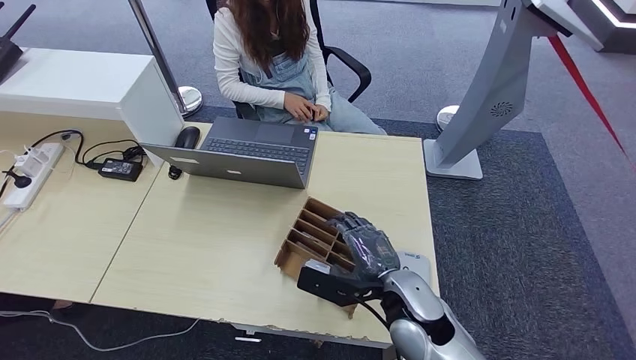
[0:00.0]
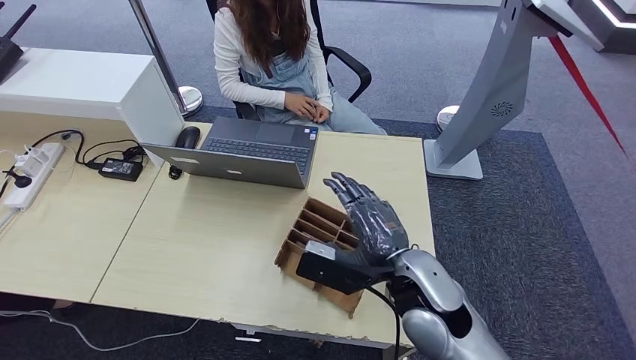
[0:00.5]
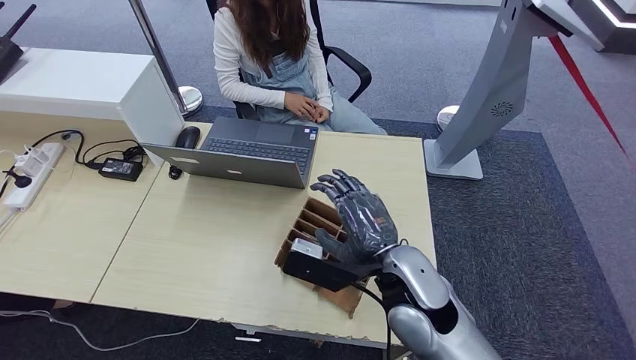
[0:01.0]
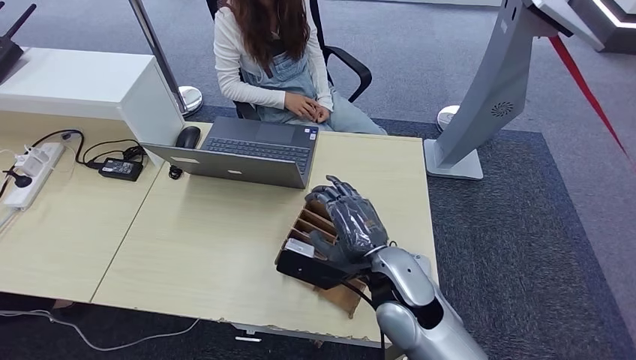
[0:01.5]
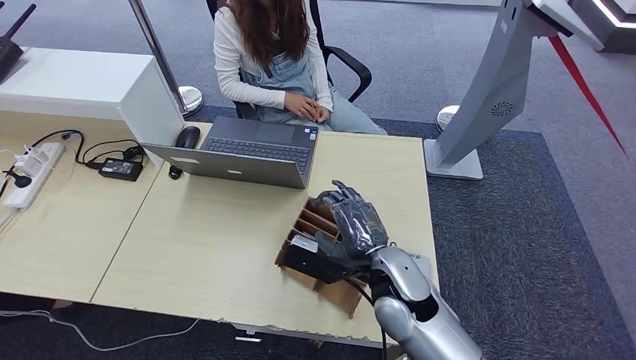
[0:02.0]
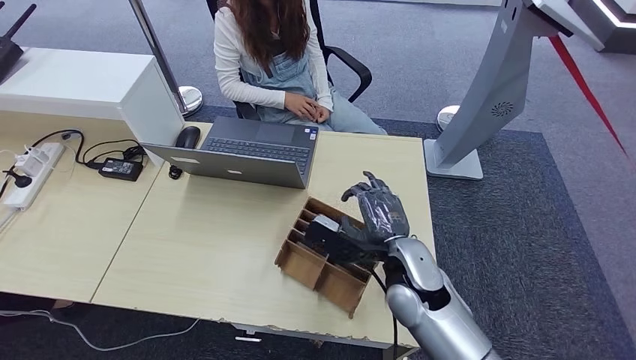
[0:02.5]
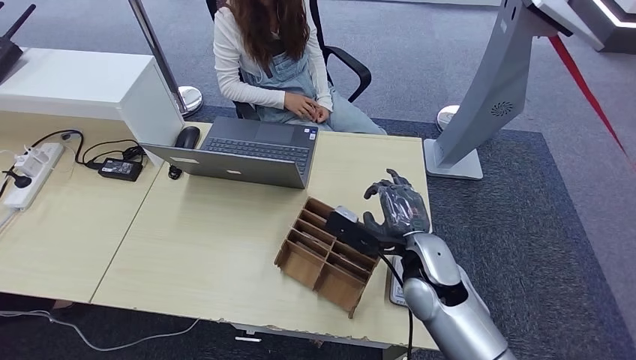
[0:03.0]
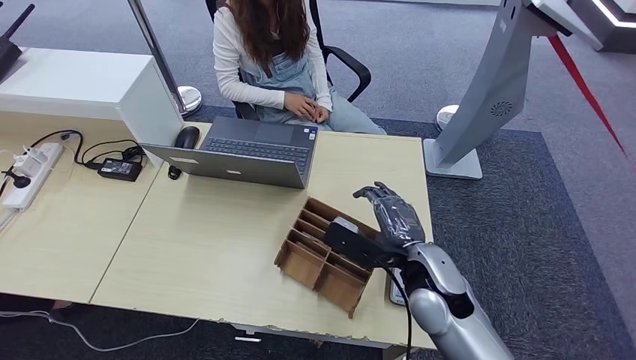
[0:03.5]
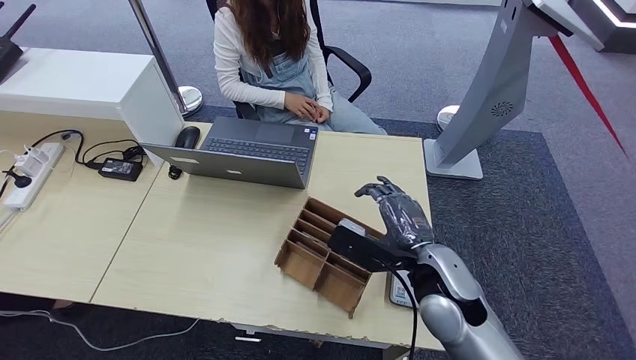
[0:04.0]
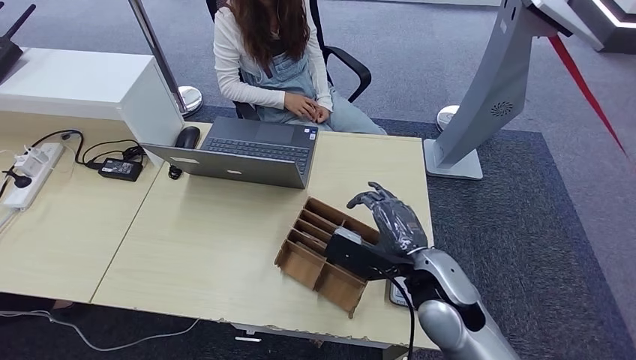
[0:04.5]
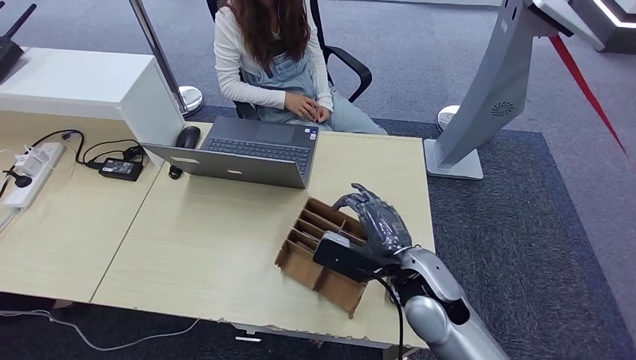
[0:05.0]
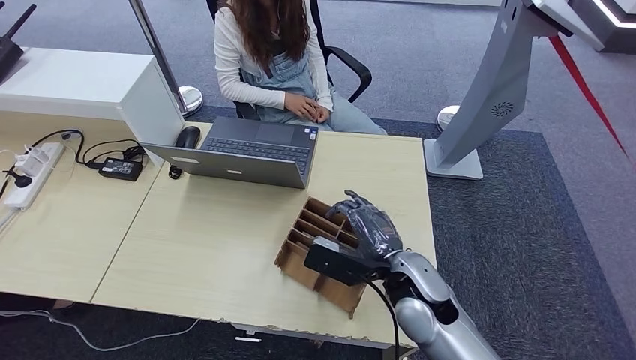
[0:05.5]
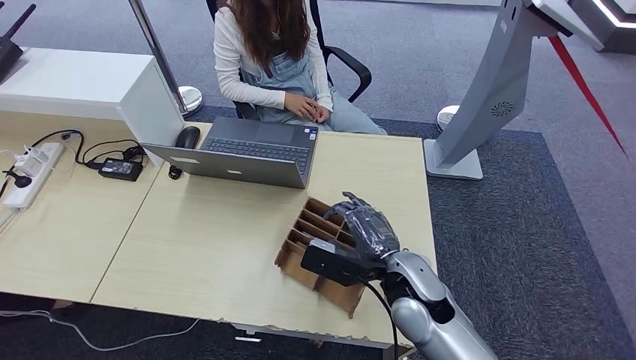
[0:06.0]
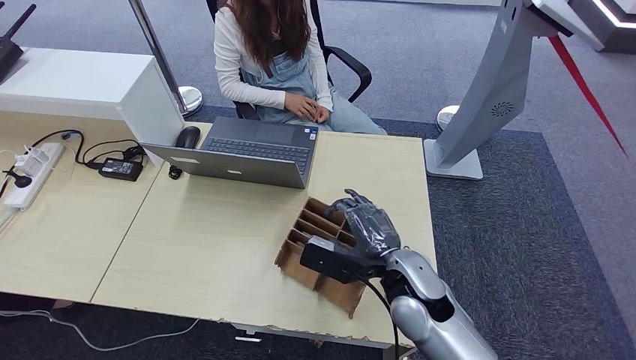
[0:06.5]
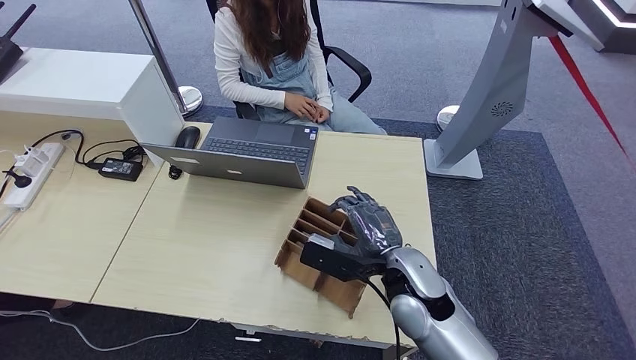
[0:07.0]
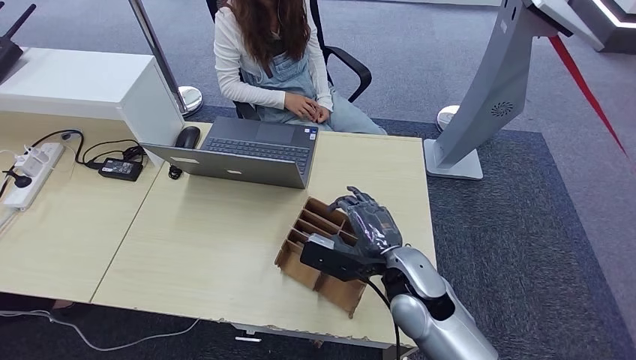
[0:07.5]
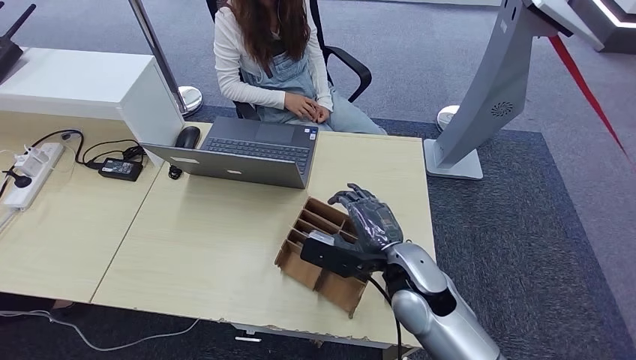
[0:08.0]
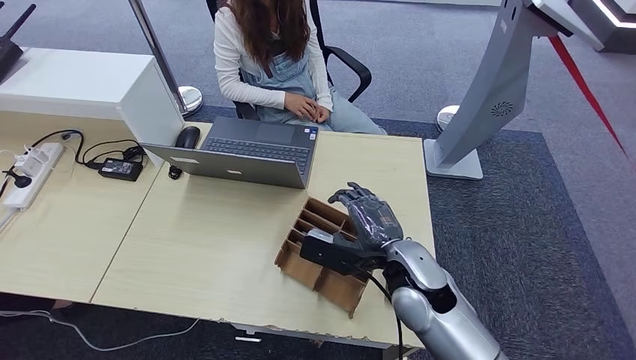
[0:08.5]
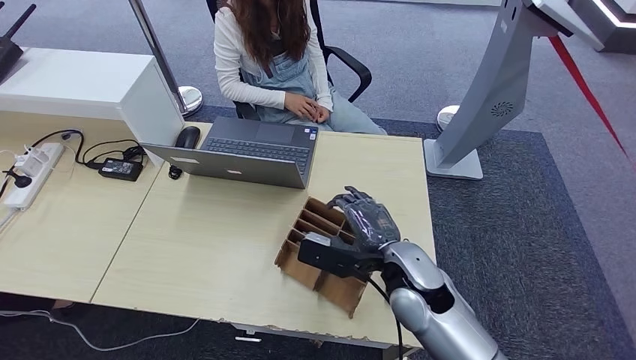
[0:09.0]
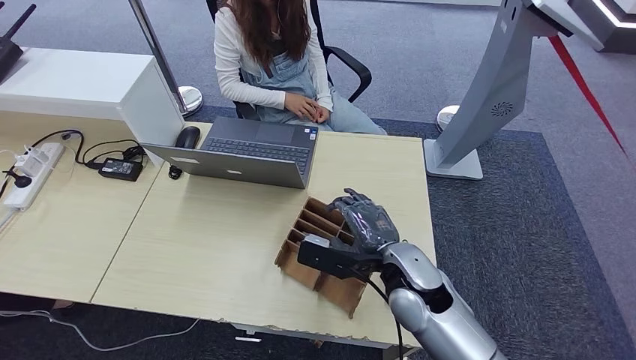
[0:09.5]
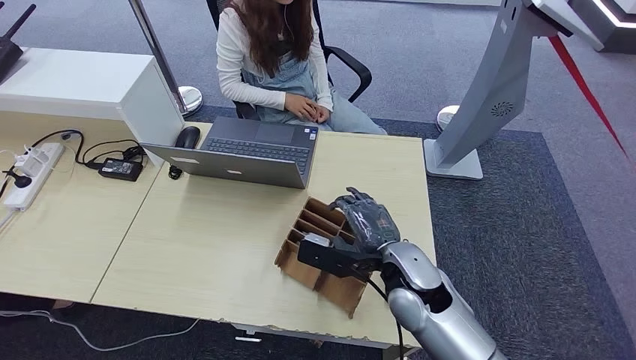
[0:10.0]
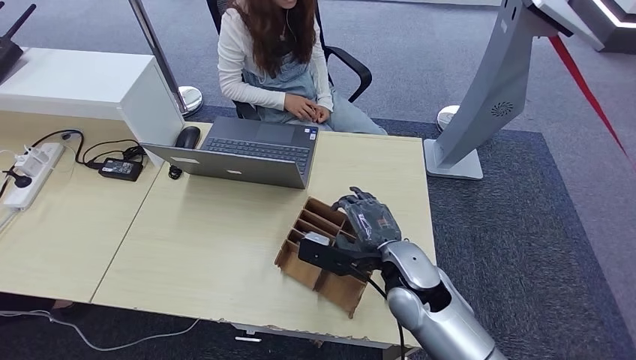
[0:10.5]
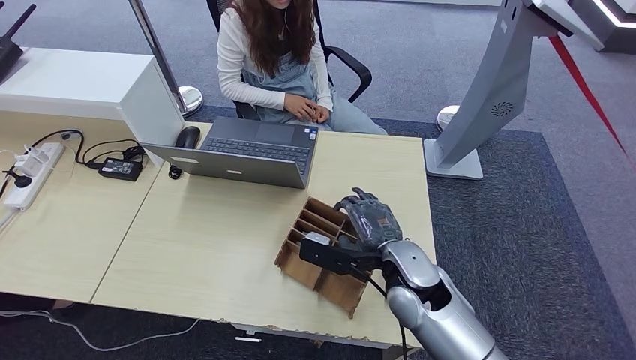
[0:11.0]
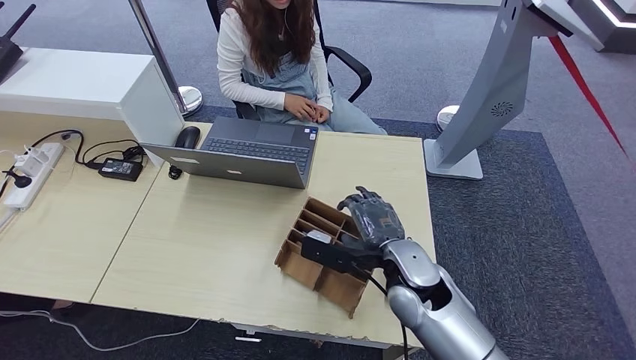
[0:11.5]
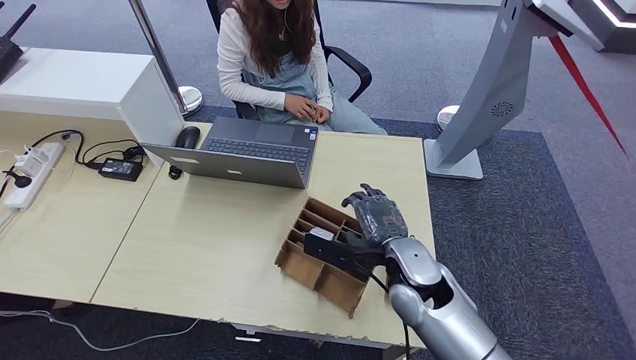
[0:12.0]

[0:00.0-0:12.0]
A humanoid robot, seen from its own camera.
0:02.0 to 0:04.0: The right hand moves to the right, approximately 5 cm.
0:04.0 to 0:12.0: The hands make only small movements.

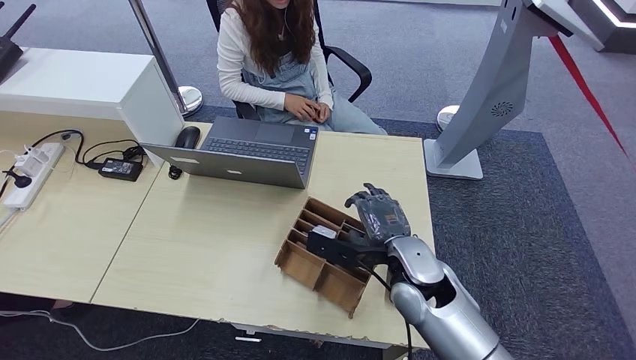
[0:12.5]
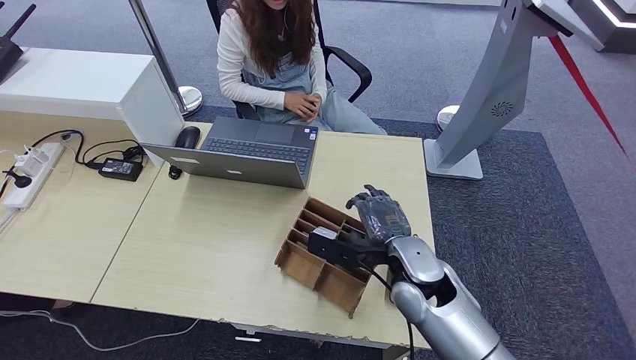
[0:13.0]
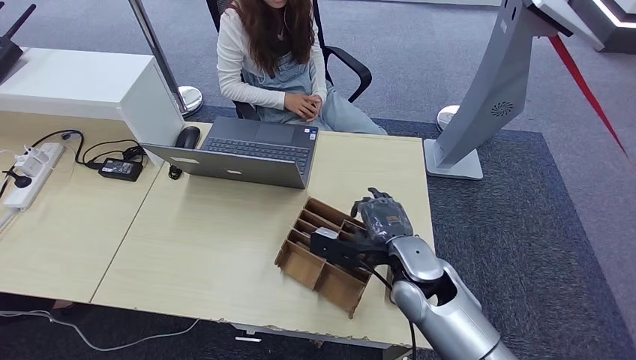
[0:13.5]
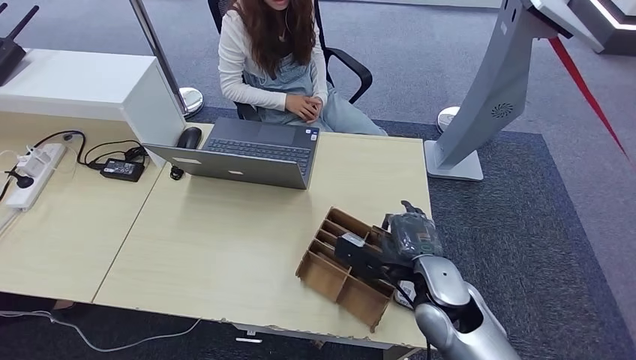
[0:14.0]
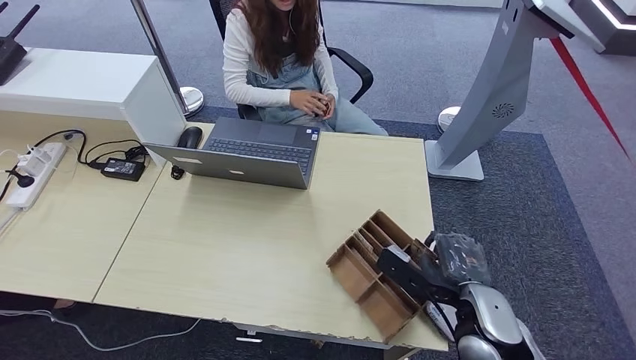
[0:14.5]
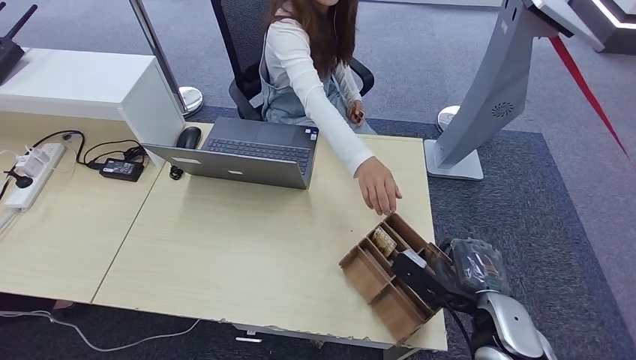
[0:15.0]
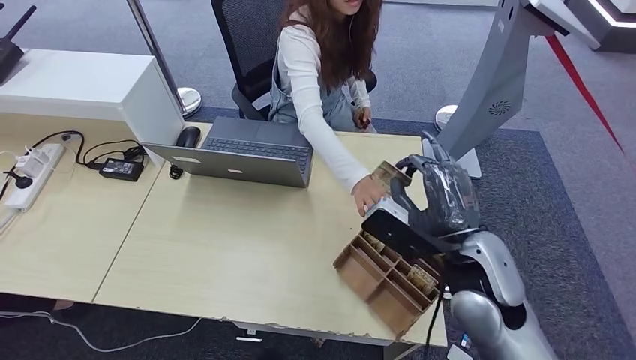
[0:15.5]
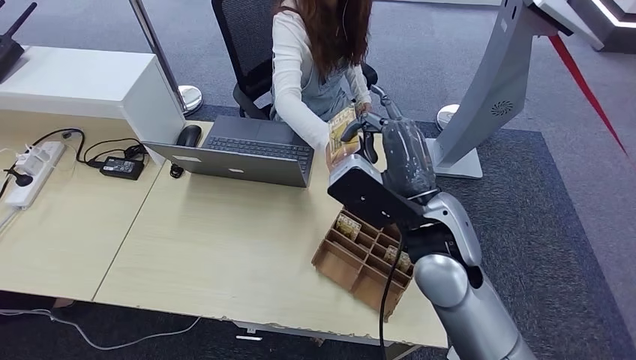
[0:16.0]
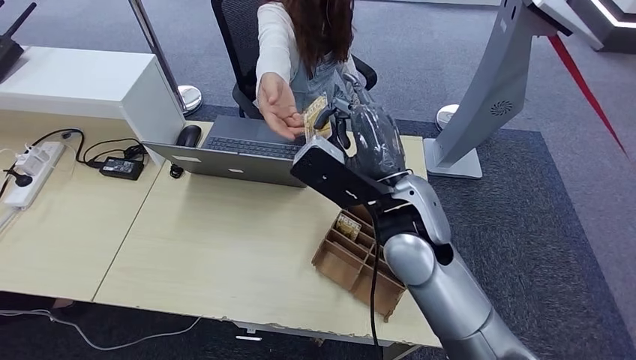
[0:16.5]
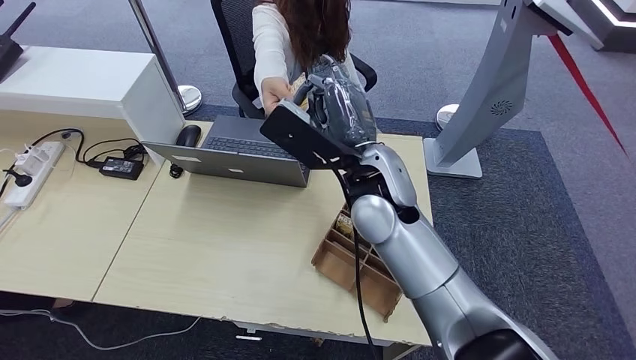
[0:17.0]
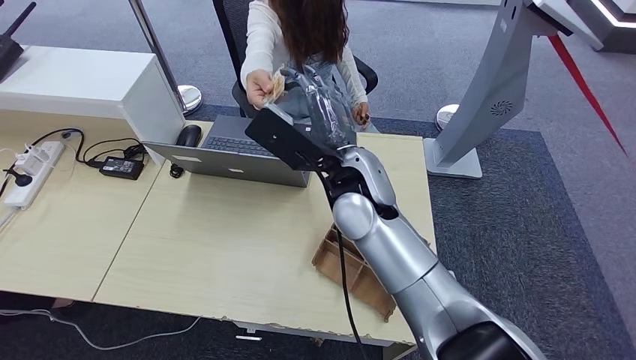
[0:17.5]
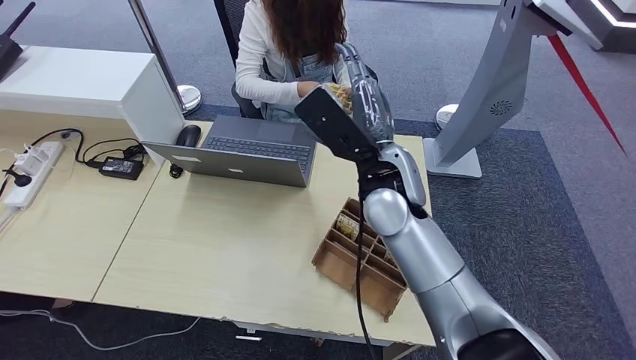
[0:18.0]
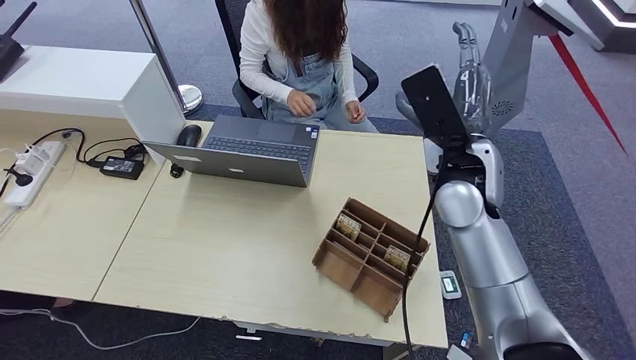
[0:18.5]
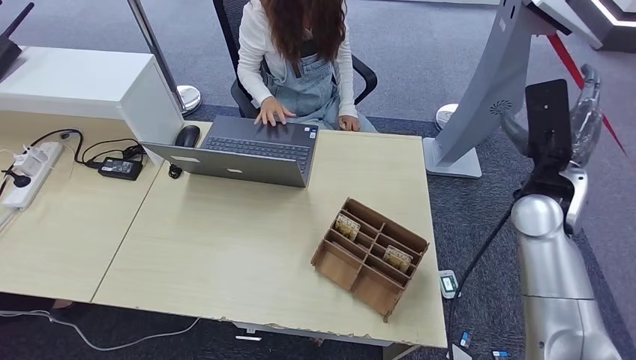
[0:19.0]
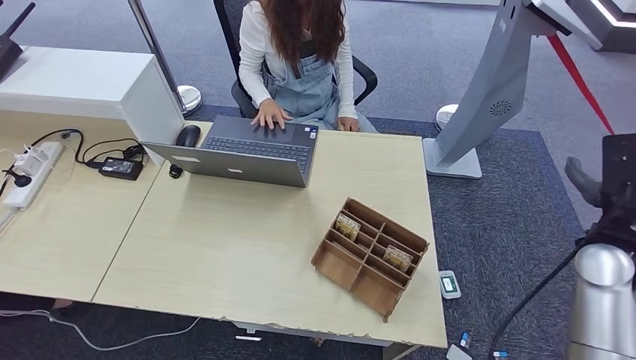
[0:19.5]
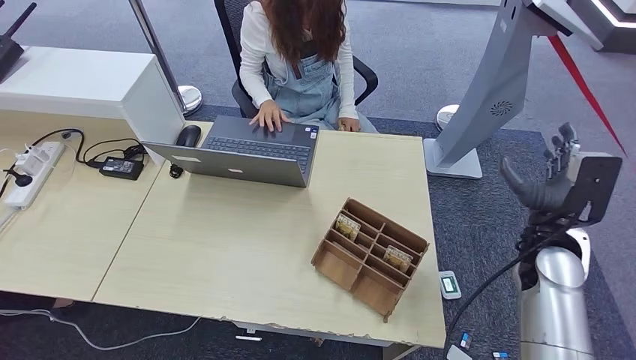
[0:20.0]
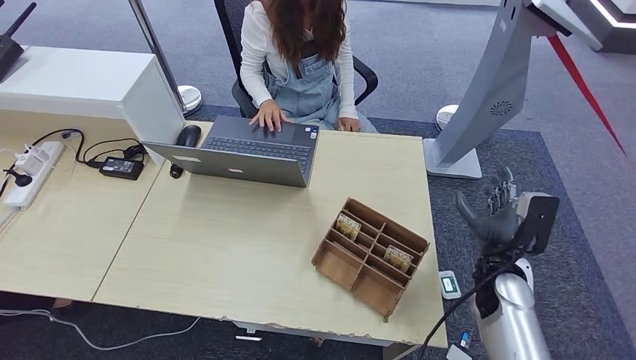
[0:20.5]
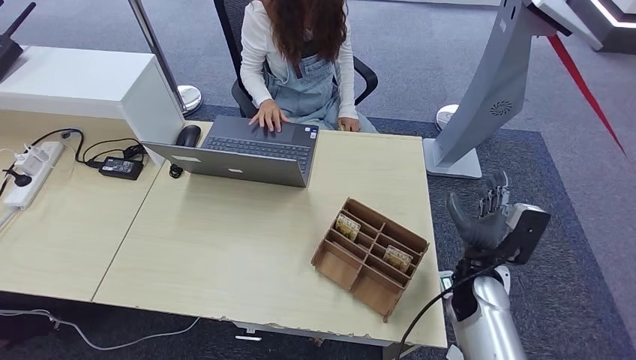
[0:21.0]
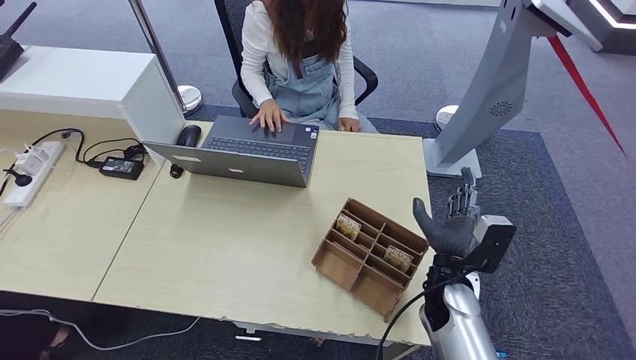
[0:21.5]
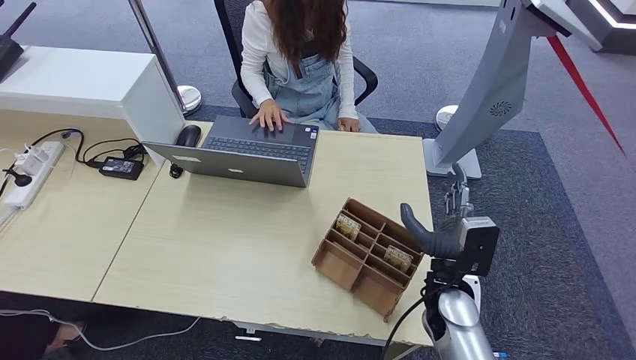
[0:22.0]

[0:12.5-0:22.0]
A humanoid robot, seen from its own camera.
Step, 0:12.5 to 0:17.0: Pick up the room key from the key card box.
Step, 0:17.5 to 0:22.0: Hand the room key to the person.
0:12.5 to 0:14.5: The left hand heads to the left, covering roughly 15 cm. Meanwhile the right hand moves to the right and backward, approximately 10 cm.
0:16.5 to 0:18.0: The right hand goes some 5 cm forward.
0:18.0 to 0:20.0: The right hand shifts some 25 cm to the right.
0:20.0 to 0:22.0: The right hand travels to the left and downward by about 15 cm.
